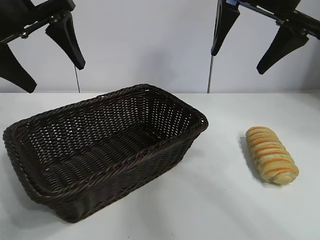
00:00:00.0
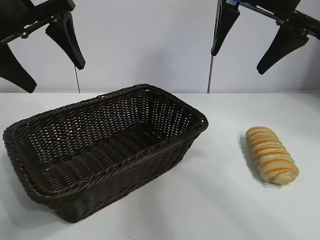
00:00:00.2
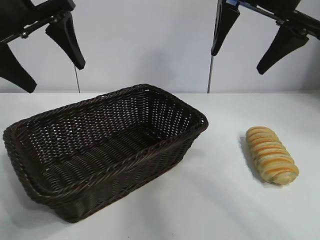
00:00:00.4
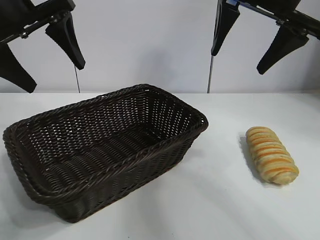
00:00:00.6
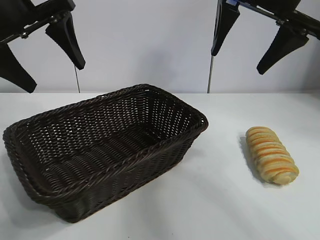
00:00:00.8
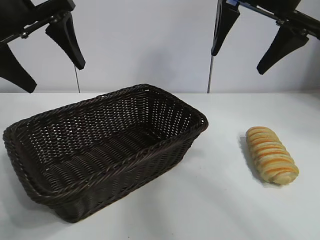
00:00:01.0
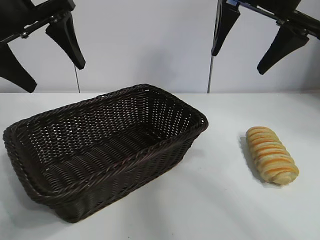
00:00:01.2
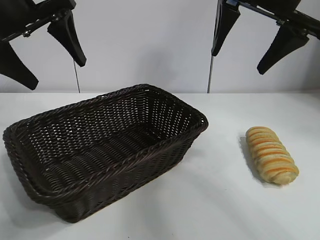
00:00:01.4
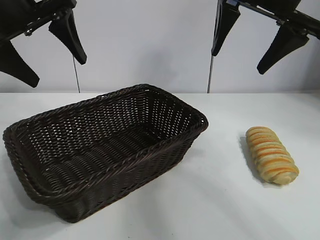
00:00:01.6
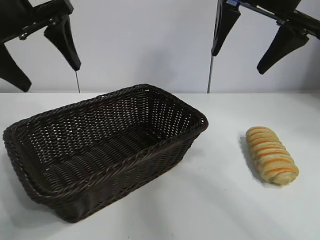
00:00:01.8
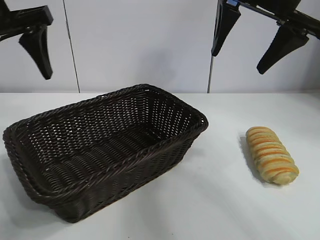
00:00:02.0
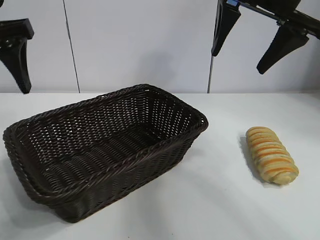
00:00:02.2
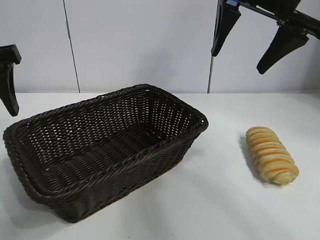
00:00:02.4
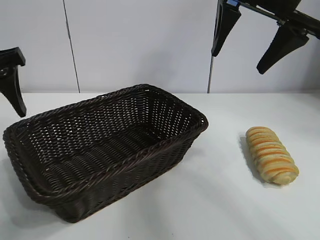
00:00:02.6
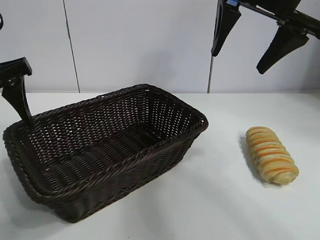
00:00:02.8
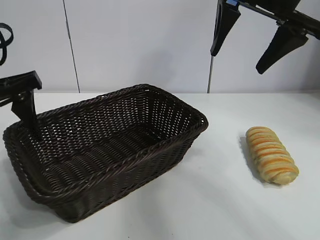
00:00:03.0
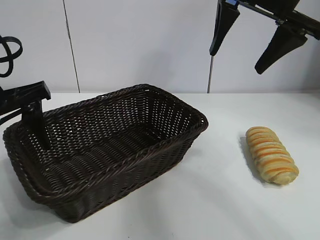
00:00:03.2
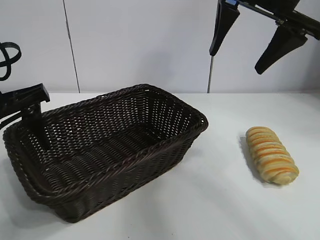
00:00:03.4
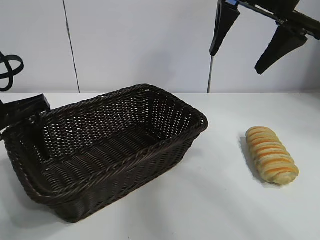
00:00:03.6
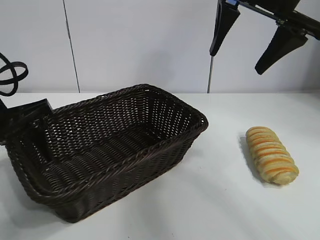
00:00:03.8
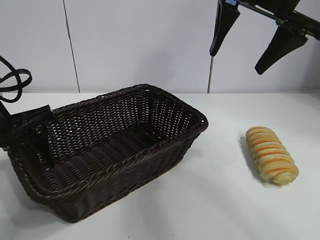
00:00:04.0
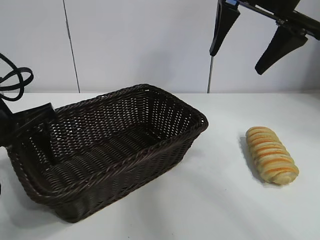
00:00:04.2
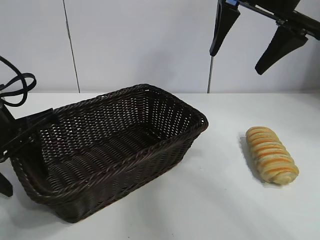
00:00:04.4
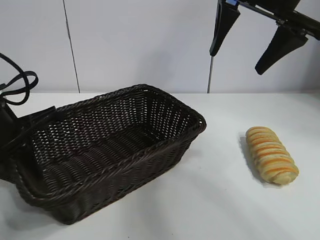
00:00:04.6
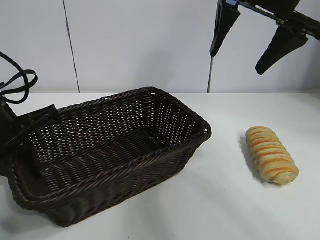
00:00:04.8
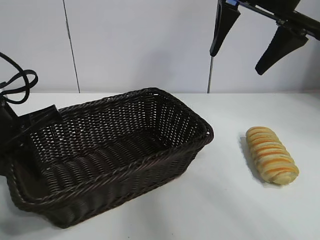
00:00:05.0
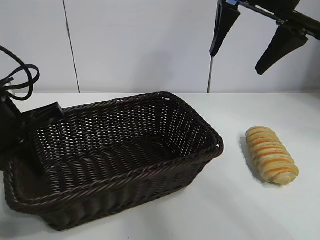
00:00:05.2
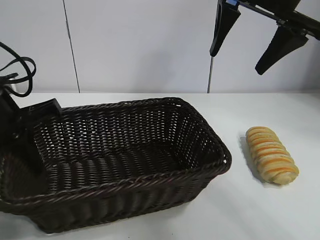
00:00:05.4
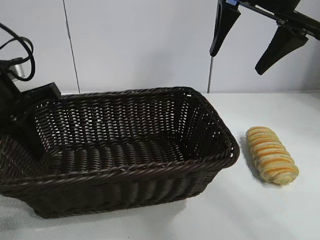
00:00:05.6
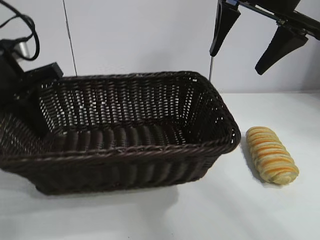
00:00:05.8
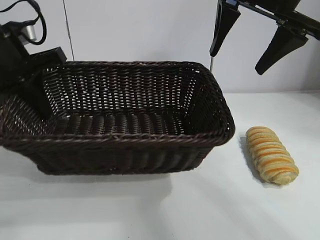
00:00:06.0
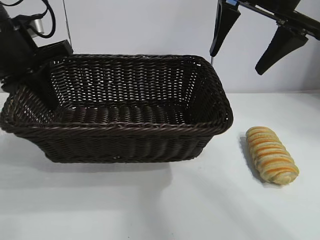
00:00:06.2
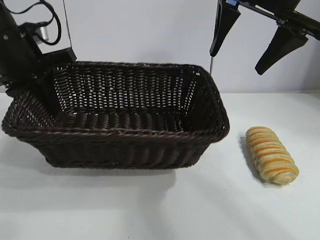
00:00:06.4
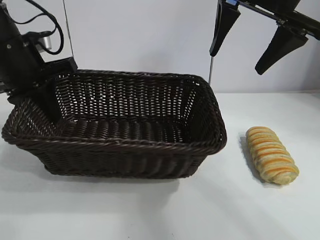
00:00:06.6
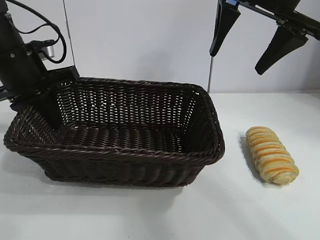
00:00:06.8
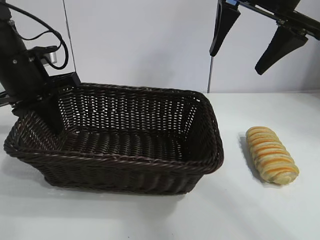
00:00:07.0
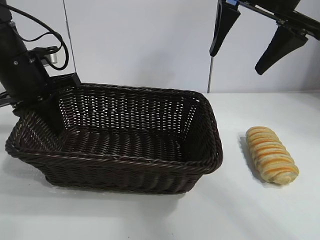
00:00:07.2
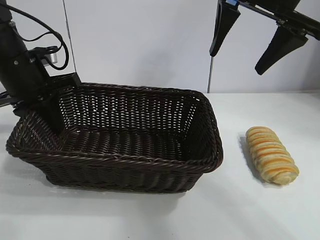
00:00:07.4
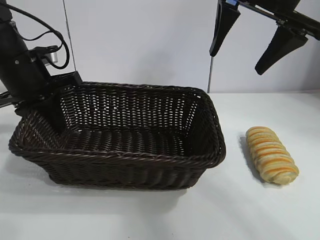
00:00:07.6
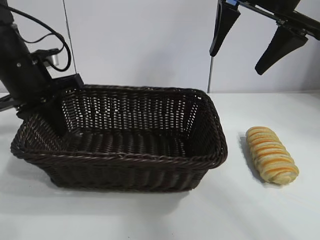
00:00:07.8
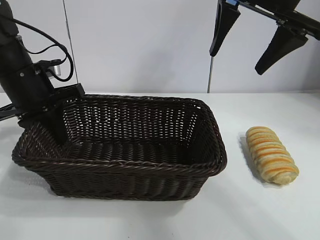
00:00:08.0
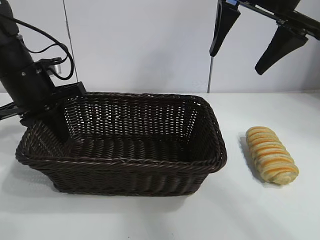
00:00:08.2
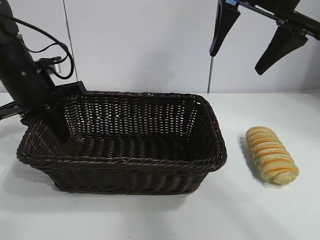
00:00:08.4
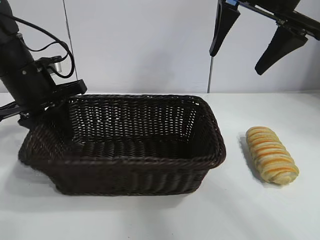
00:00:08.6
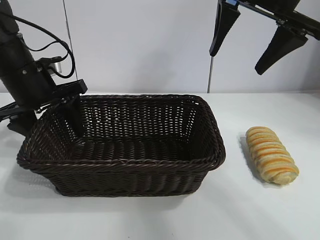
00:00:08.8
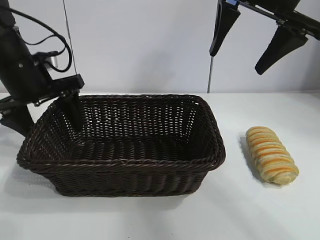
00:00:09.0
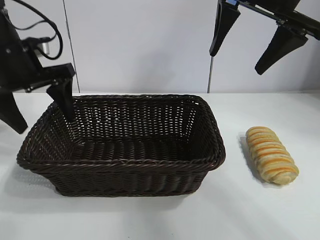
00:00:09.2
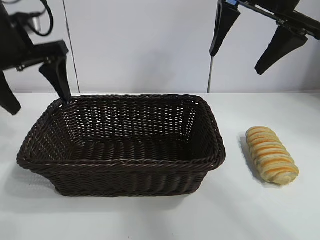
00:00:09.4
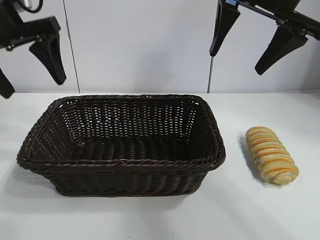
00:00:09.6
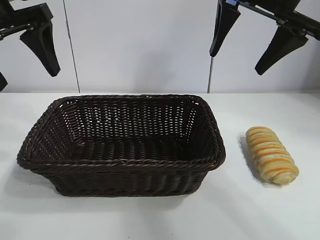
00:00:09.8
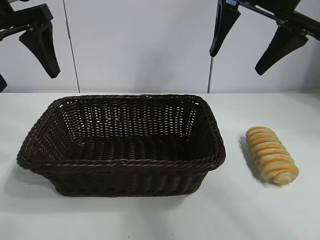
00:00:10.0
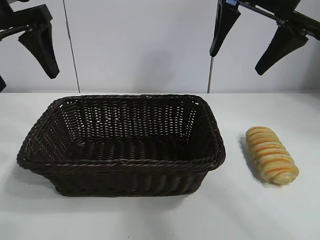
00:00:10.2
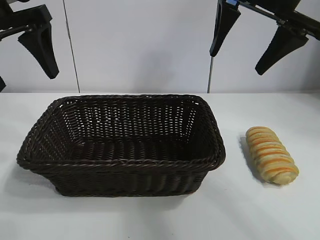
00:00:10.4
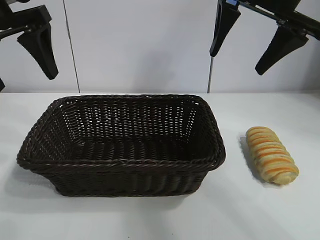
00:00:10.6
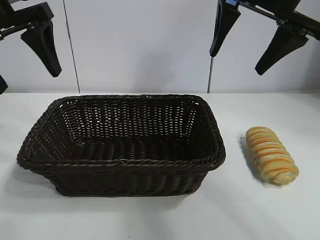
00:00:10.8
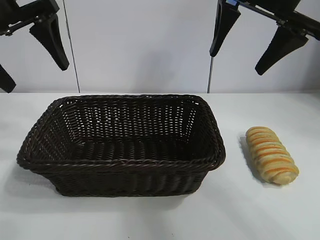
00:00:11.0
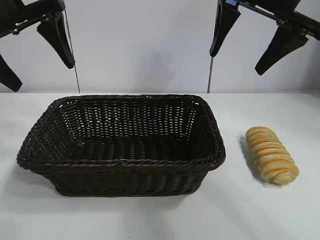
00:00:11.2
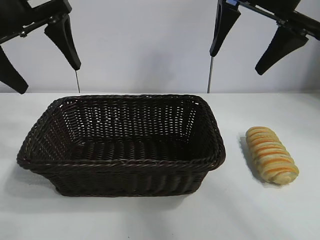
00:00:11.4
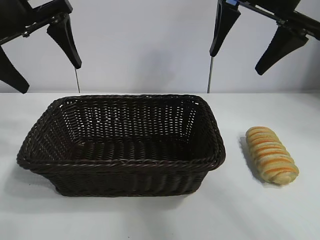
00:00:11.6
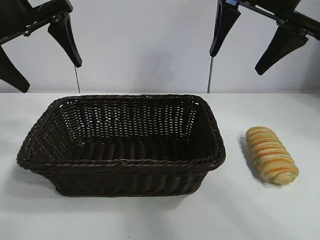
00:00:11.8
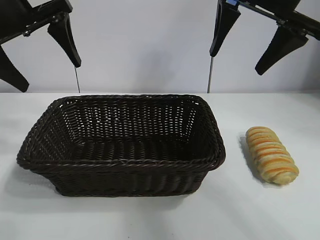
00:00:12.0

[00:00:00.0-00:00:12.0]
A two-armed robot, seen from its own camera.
Task of the whole recording: pick up the long bread and put it into the basket.
Step, 00:00:01.2 to 00:00:04.6: Grasp the basket with the left gripper.
Step, 00:00:04.8 to 00:00:08.8: Place the basket in the center of the table with the left gripper.

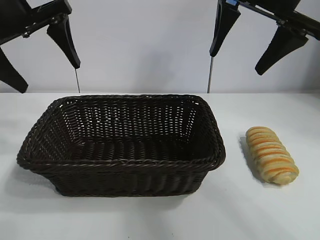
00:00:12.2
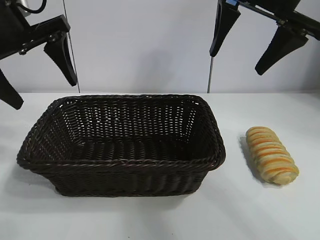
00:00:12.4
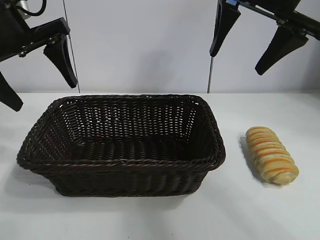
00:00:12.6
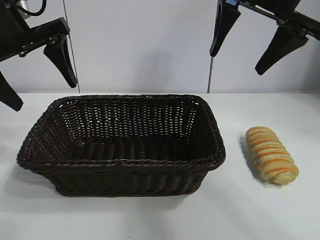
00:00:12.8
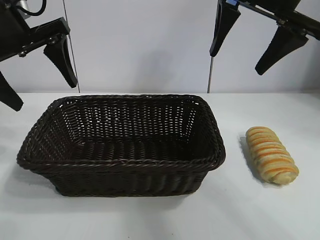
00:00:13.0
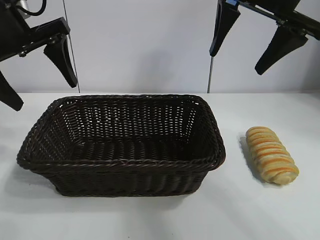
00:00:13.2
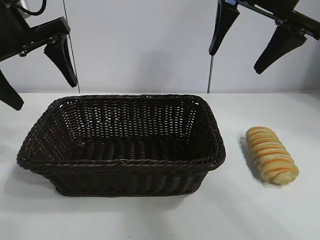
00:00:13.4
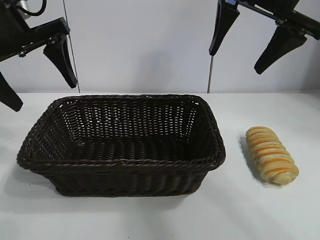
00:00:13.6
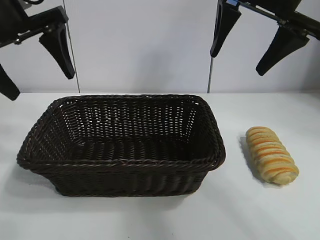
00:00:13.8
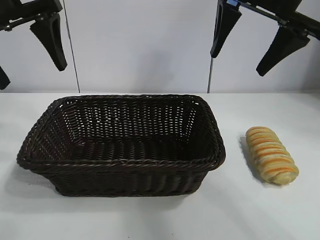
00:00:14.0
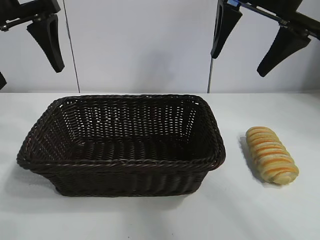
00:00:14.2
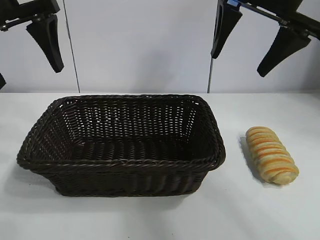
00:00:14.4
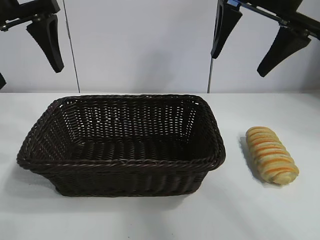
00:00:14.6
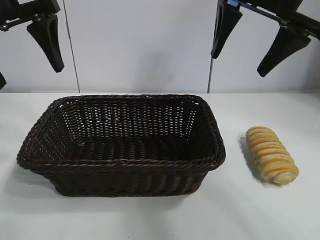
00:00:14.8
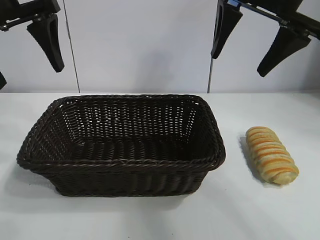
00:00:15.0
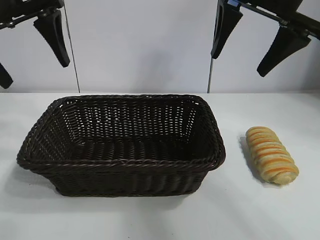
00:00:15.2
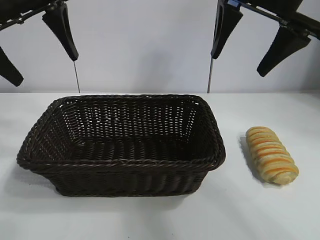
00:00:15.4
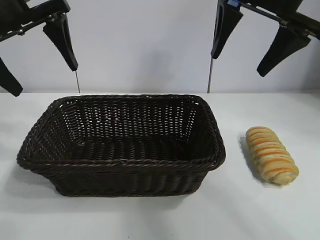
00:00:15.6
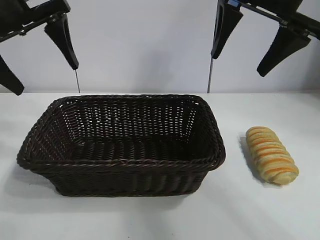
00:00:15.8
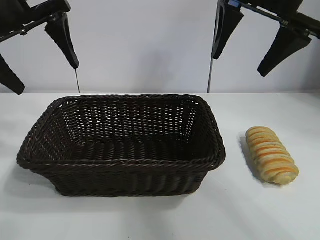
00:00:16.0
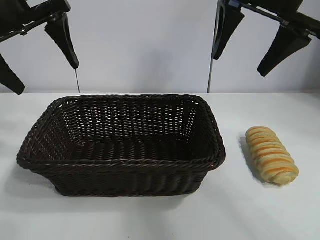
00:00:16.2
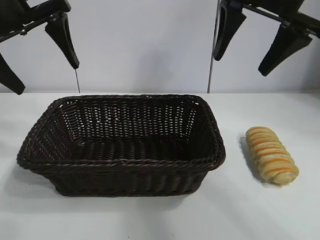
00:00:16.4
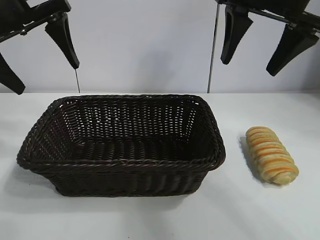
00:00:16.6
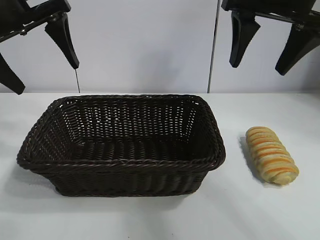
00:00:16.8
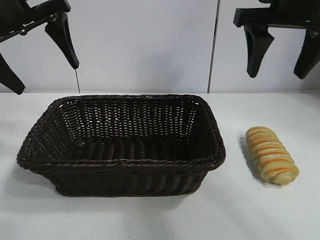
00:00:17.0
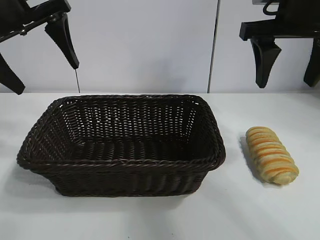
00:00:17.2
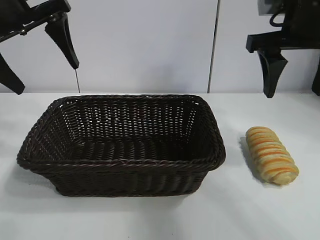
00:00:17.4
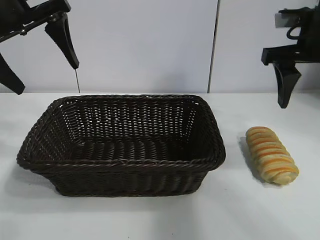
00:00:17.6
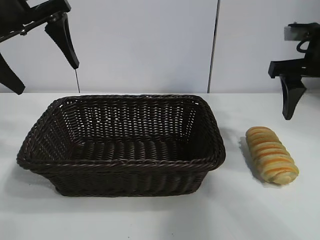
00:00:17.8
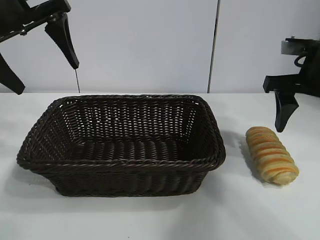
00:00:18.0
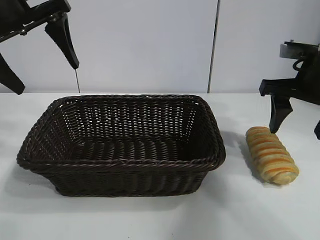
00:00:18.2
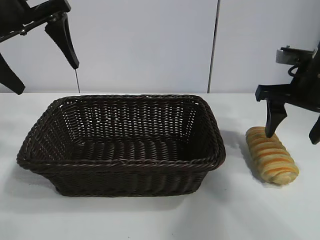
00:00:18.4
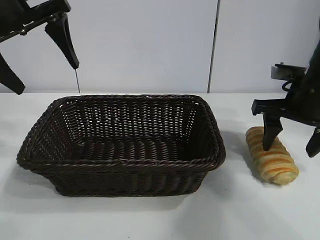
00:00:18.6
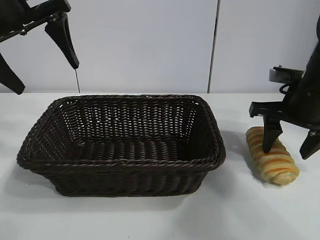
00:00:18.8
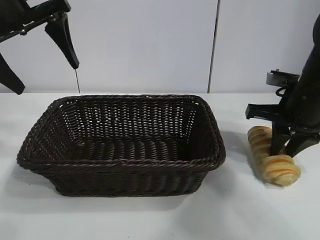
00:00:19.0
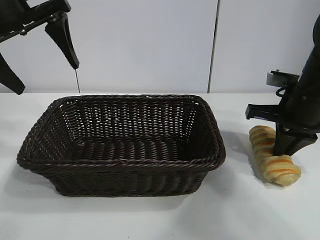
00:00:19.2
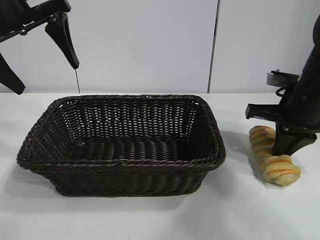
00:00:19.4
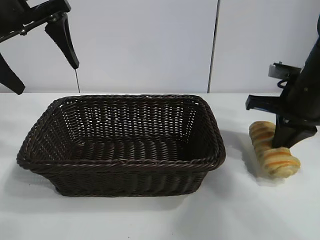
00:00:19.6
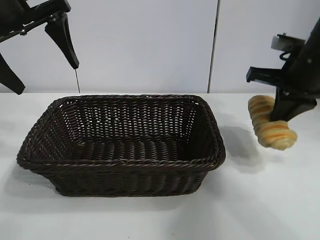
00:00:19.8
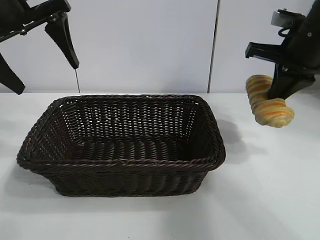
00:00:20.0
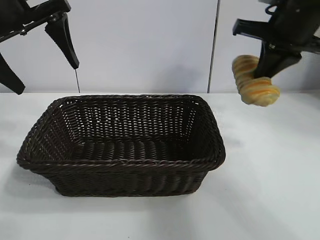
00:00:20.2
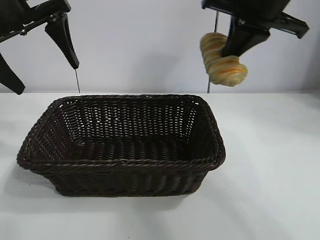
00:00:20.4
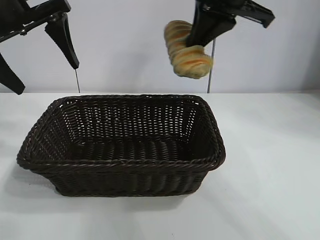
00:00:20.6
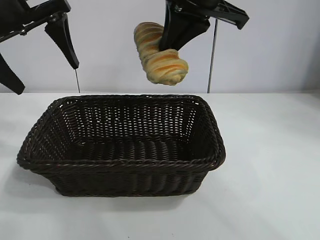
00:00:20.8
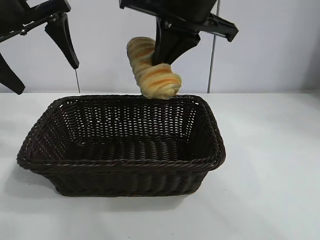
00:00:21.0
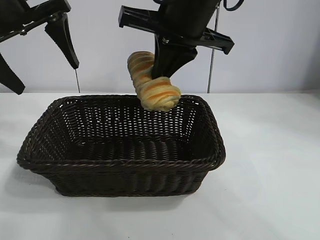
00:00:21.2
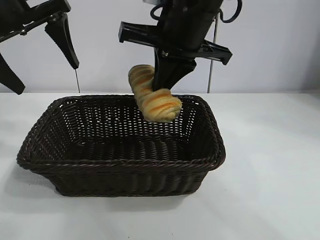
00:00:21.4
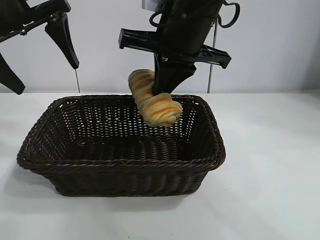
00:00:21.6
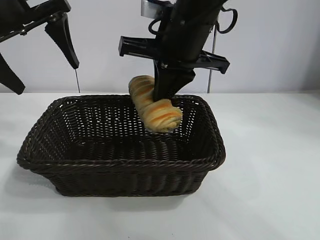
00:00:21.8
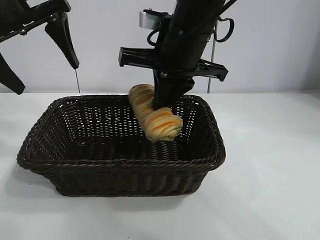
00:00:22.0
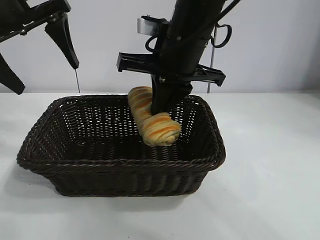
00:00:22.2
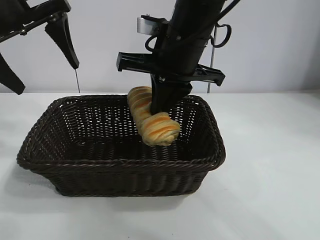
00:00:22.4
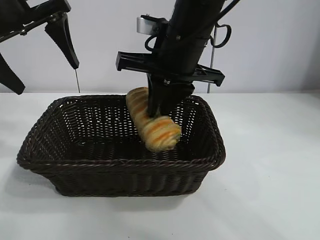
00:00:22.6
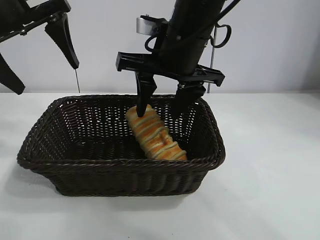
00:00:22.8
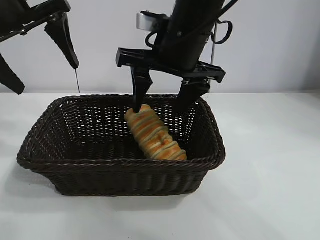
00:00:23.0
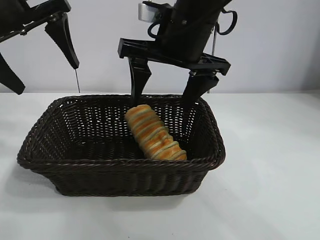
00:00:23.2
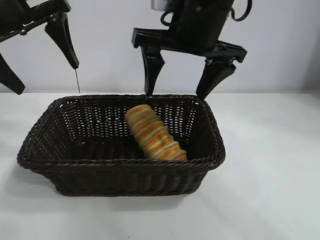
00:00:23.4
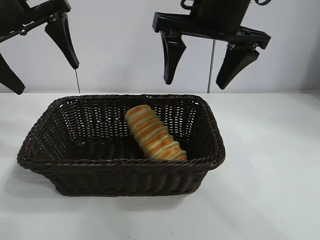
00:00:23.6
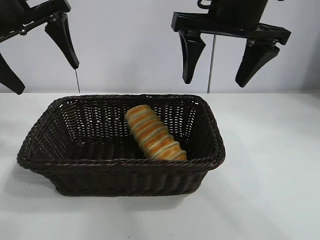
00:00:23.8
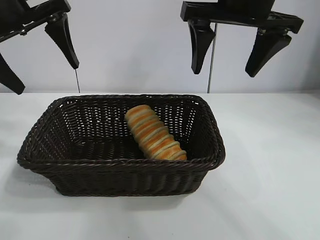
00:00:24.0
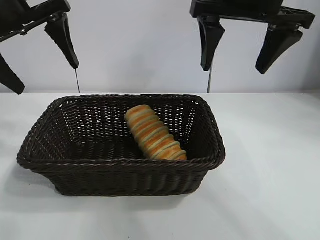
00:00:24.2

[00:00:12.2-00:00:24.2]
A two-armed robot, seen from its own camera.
Task of the whole recording: pick up the long bread and put it into the basket.
Step, 00:00:12.2 to 00:00:19.0: Grasp the long bread with right gripper.
Step, 00:00:19.4 to 00:00:22.8: Place the long bread in the basket with right gripper.
